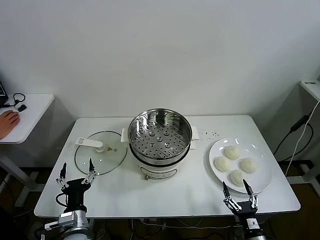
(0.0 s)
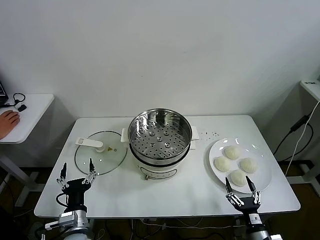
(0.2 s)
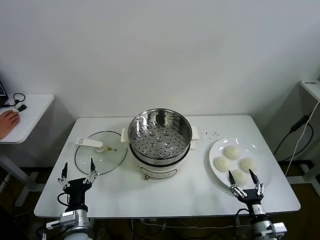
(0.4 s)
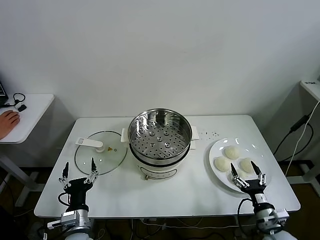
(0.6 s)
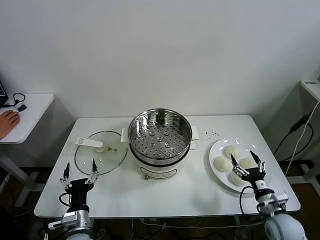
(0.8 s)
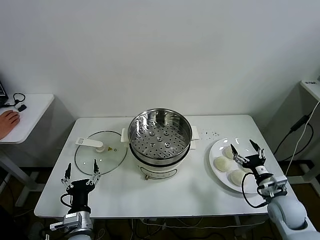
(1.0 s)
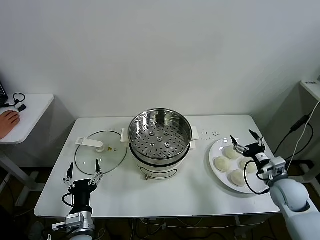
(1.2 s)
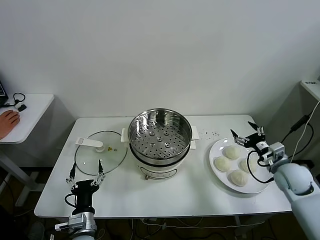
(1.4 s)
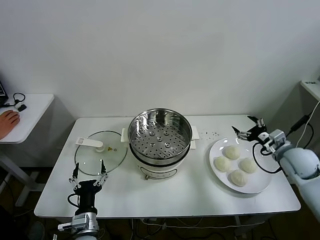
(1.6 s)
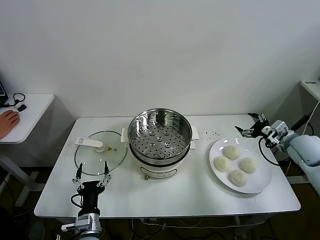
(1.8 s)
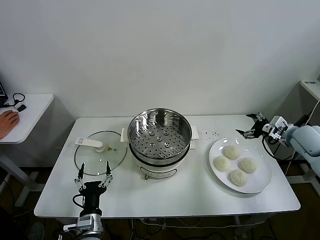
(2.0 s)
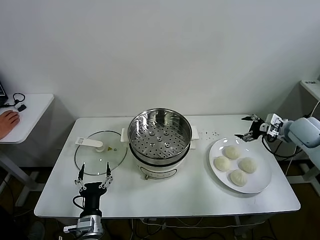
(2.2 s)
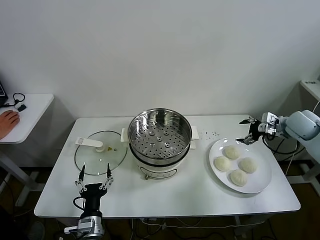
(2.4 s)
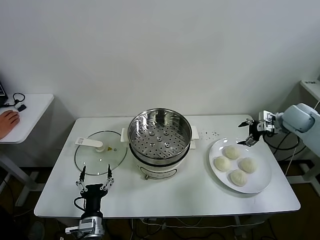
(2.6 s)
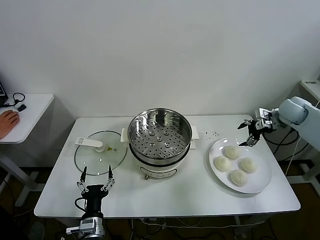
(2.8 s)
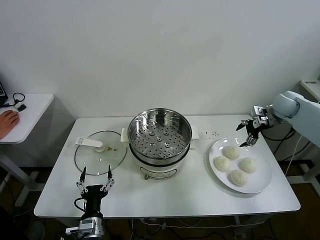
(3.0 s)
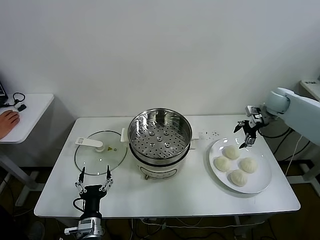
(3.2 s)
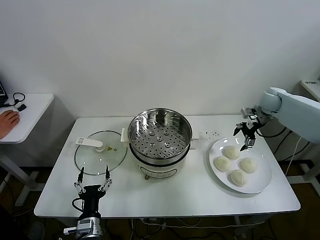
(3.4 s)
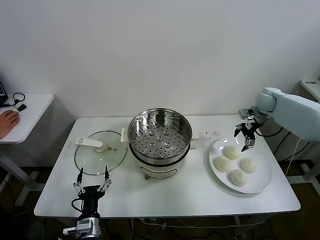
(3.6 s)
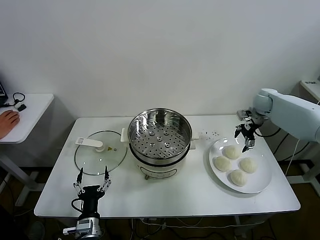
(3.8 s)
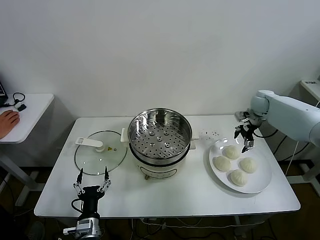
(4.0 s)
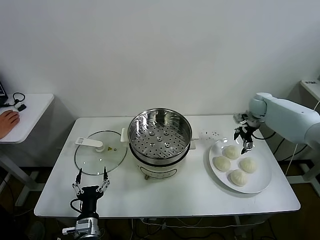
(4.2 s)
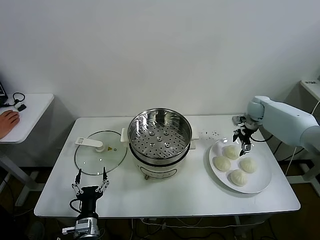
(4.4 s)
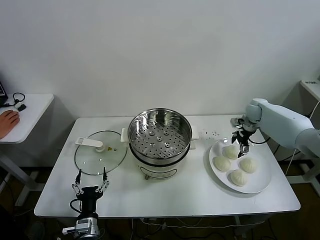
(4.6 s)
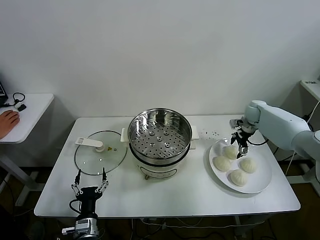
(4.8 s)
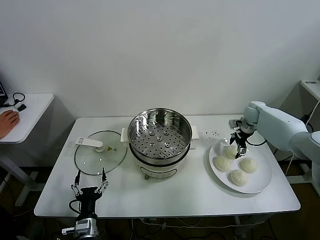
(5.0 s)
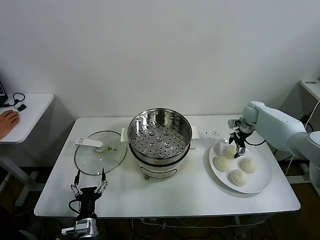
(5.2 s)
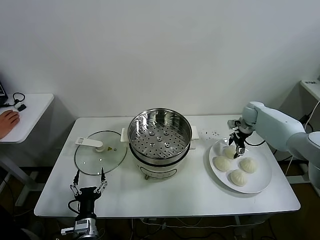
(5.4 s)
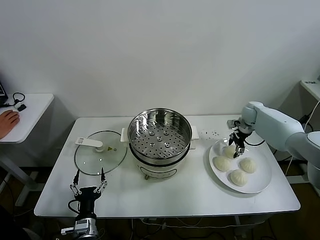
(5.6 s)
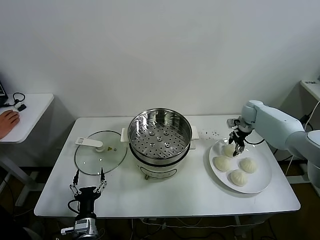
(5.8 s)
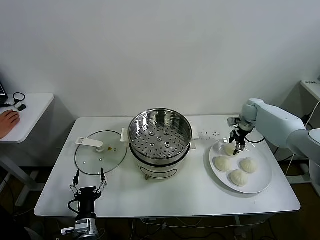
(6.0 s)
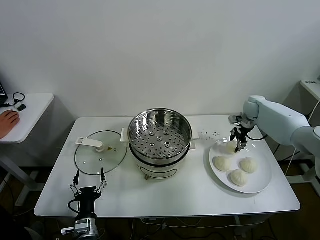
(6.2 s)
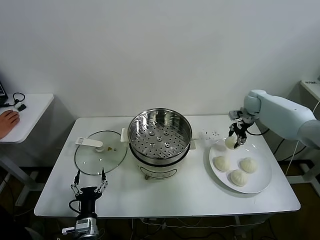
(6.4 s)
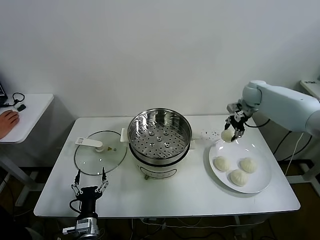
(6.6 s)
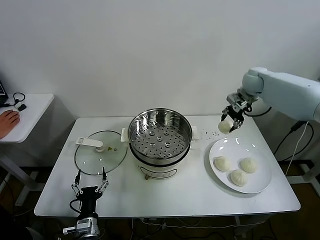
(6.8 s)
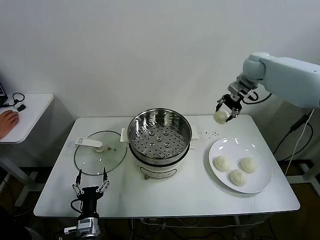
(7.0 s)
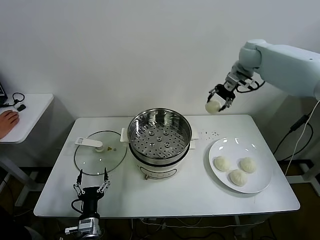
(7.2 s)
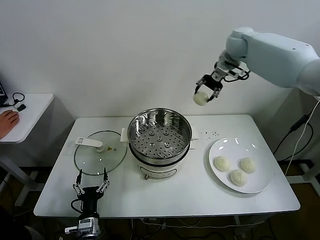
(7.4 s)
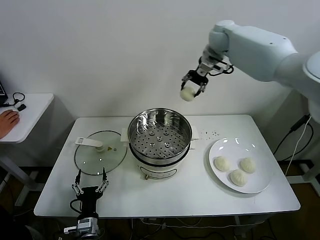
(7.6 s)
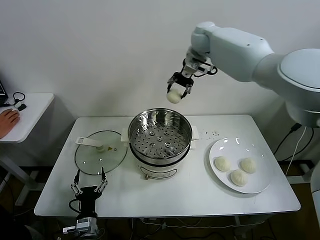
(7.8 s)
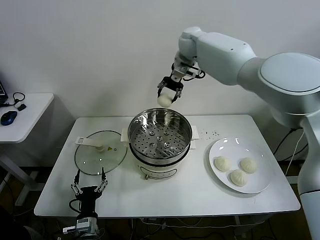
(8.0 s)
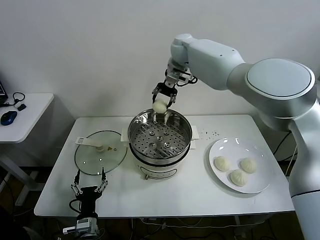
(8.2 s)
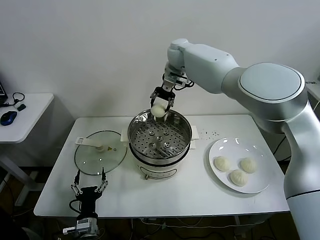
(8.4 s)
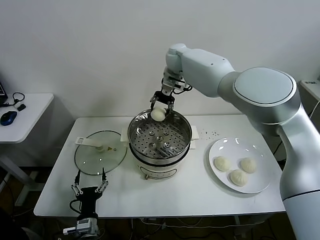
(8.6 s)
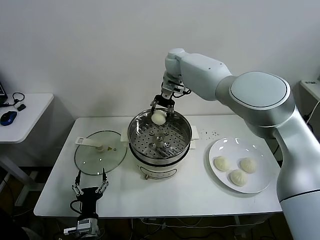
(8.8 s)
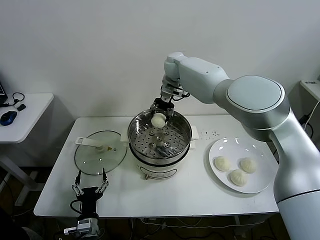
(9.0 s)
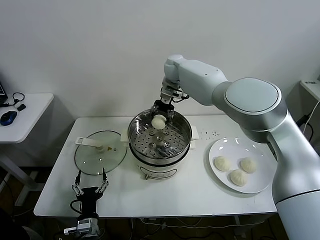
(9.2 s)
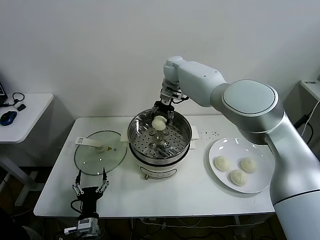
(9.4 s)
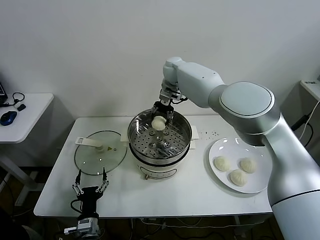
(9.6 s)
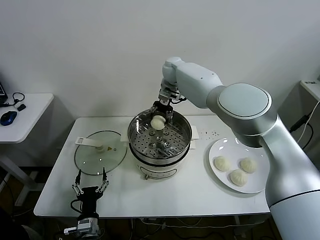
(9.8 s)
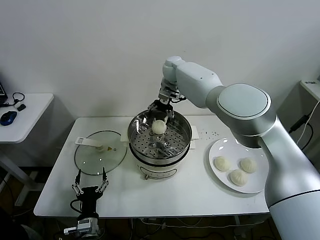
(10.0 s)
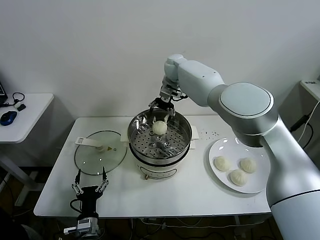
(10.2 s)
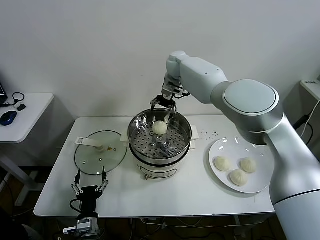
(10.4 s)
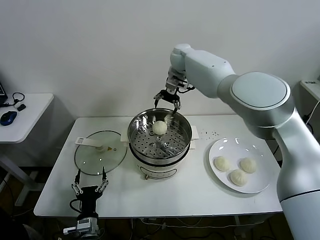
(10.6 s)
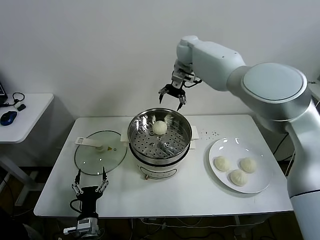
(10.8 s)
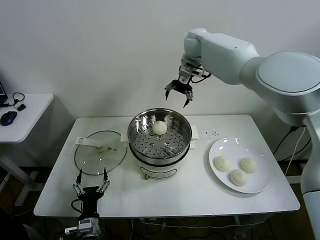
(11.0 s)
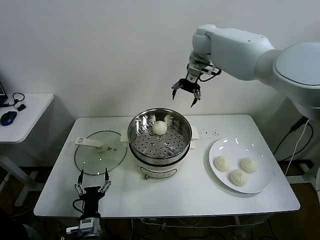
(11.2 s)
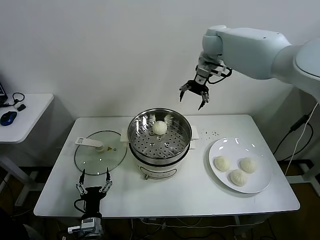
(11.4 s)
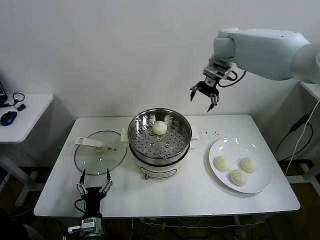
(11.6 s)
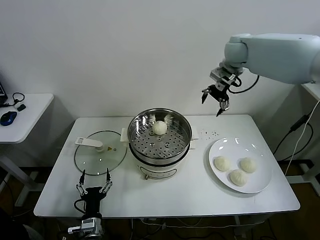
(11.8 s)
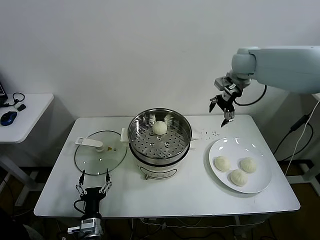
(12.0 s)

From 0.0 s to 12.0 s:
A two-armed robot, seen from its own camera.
Task of the whole recording: take steamed baozi put them in steamer.
Step, from 0.0 s to 6.0 s: Grasp the baozi in the plate with right gripper.
Step, from 6.2 s to 10.0 s: Place the baozi on the steamer with right gripper.
From 1.6 s to 3.0 s: The right gripper moves forward and upward, about 20 cm.
From 3.0 s to 4.4 s: The right gripper travels downward by some 5 cm.
From 4.4 s to 6.0 s: The right gripper closes its fingers.
From 6.0 s to 7.6 s: The right gripper heads upward and to the left, covering roughly 35 cm.
From 7.6 s to 9.0 s: The right gripper shifts approximately 15 cm to the left and downward.
From 9.0 s to 10.4 s: The right gripper opens up.
From 10.4 s to 12.0 s: The right gripper shifts some 25 cm to the right and backward.

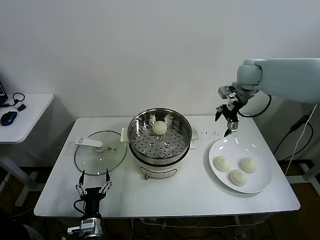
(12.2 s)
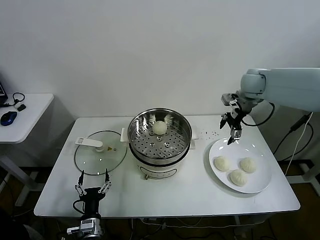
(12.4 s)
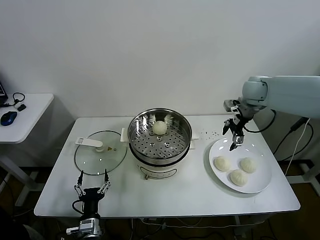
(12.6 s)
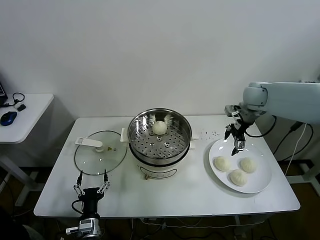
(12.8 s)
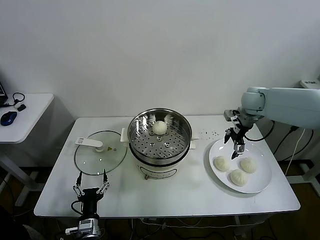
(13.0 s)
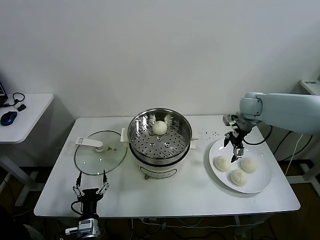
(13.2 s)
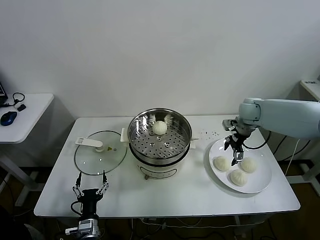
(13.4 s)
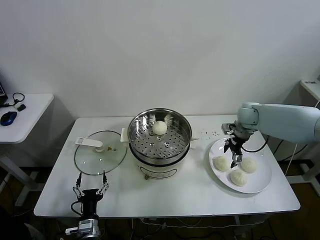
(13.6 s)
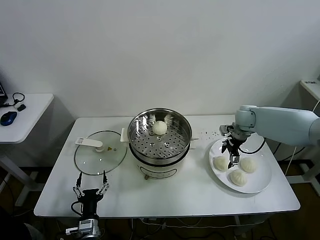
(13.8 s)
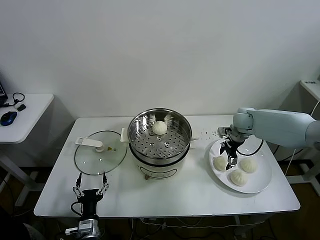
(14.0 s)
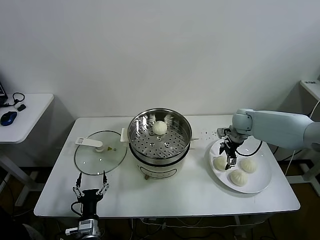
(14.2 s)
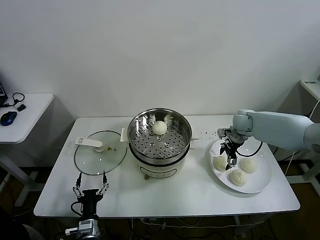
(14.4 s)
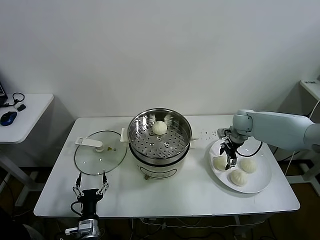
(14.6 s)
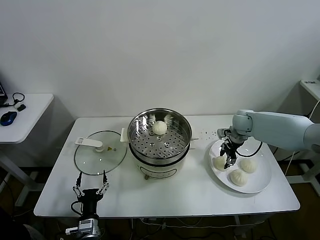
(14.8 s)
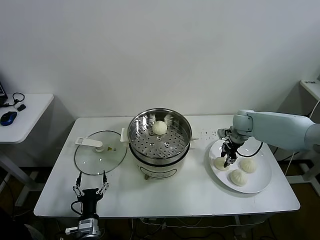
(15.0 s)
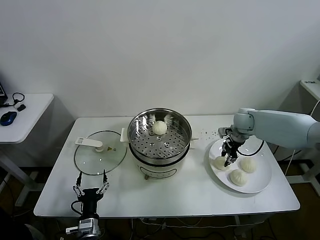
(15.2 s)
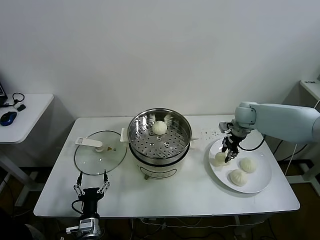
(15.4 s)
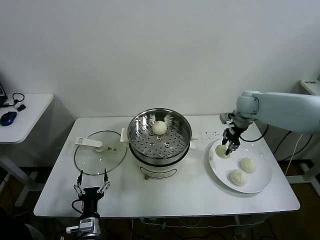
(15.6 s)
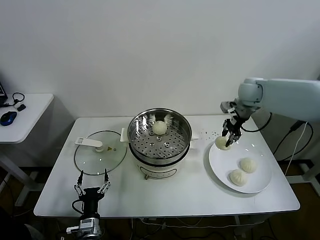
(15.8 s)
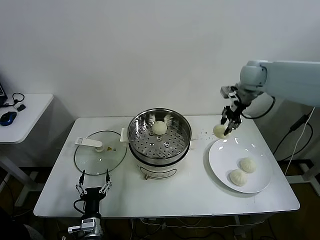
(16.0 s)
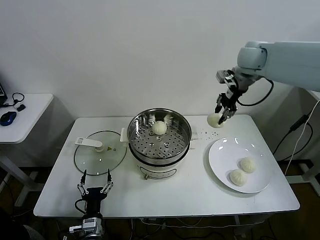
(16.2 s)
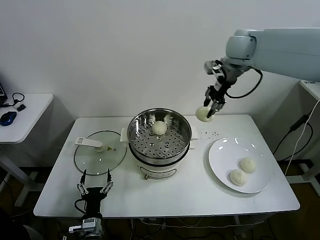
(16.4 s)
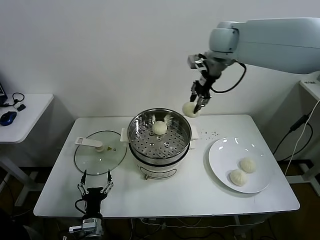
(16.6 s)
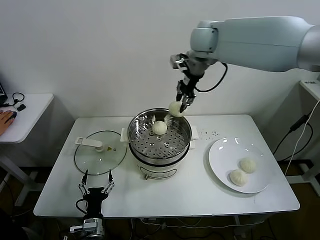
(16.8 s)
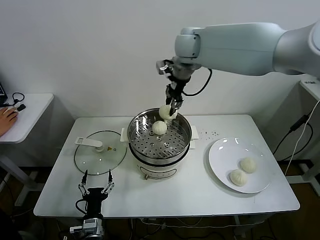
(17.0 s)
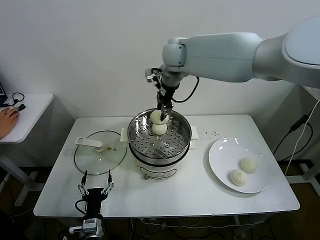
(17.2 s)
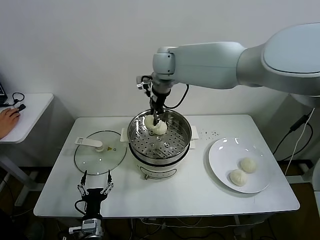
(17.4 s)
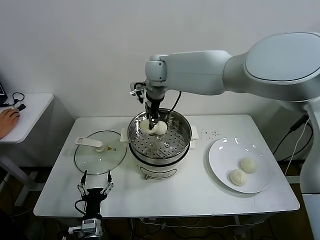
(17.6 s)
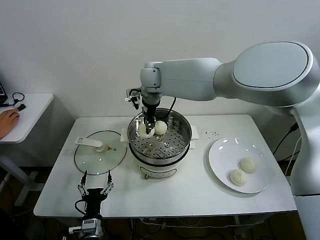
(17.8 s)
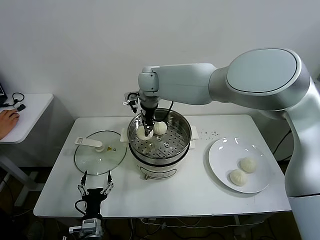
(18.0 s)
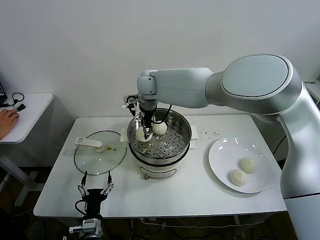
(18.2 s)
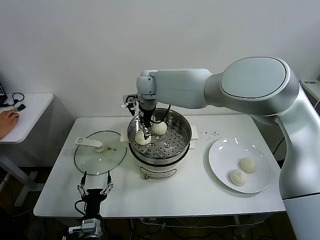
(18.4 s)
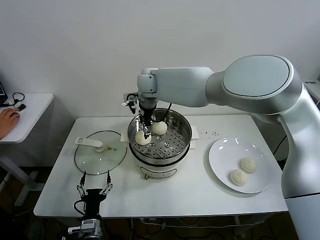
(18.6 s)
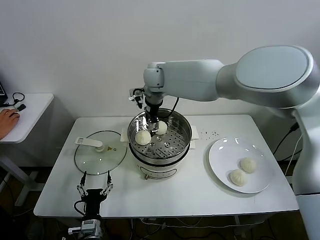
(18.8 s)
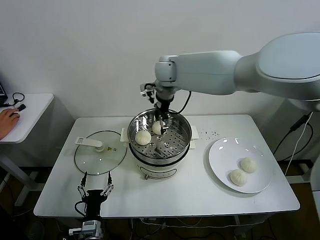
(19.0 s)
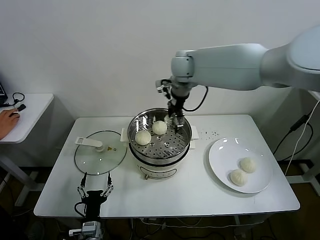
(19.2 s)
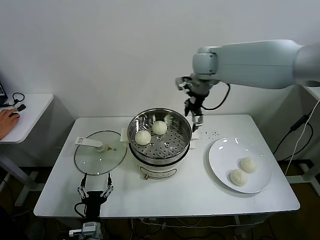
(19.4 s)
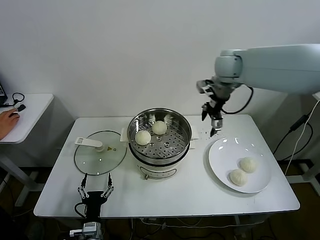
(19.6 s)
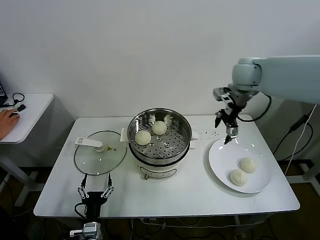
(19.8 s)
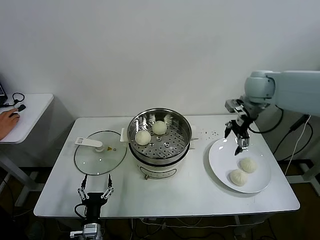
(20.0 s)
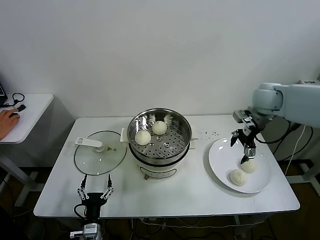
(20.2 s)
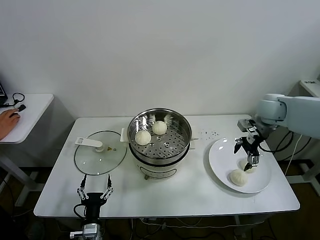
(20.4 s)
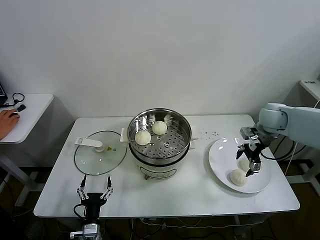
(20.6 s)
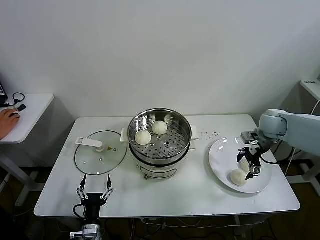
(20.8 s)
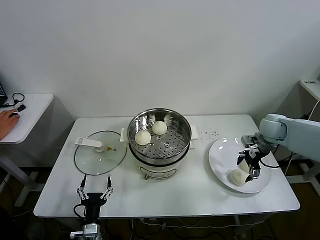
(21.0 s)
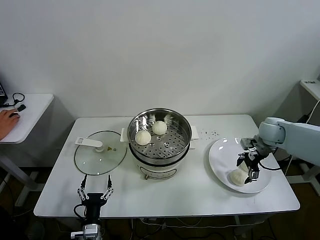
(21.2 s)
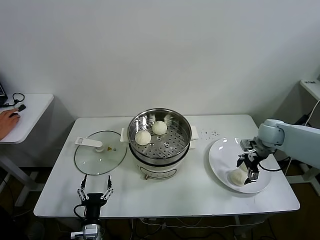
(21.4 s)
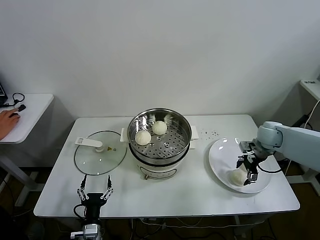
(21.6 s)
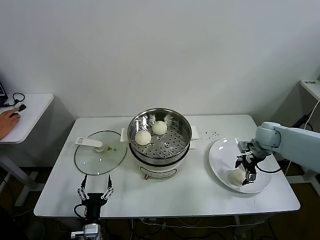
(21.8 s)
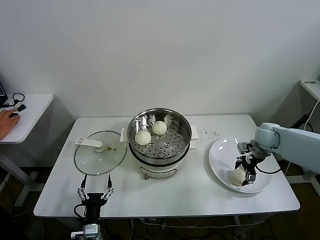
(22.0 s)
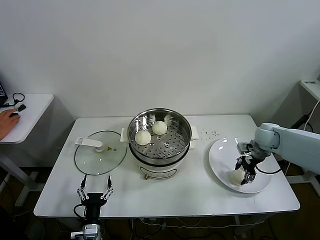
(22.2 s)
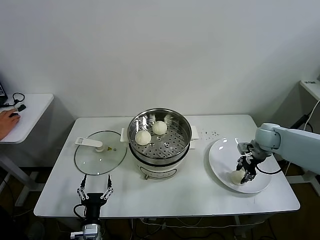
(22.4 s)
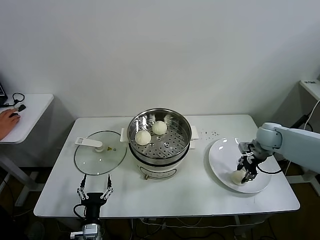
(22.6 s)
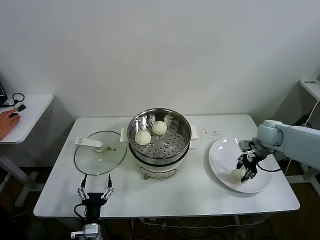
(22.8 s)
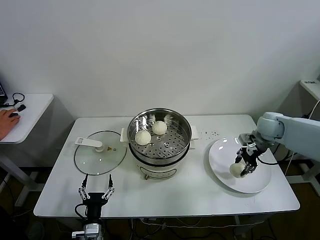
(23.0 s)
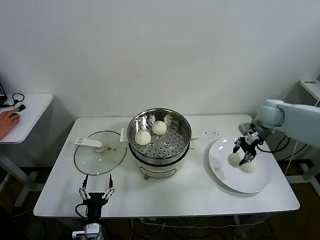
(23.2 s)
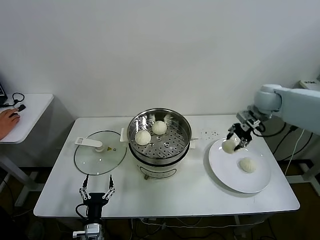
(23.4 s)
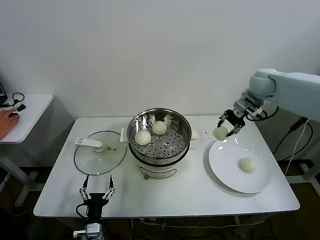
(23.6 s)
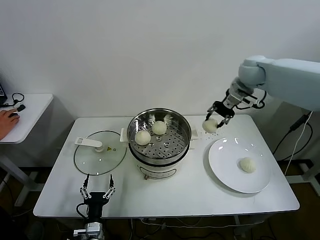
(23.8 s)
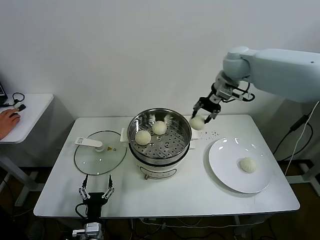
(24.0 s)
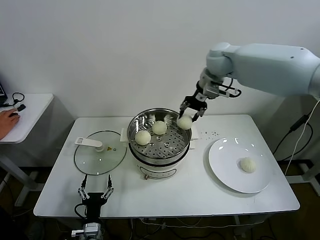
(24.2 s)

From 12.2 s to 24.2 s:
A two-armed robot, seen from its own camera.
Task of the whole recording: take steamed baozi put them in steamer.
Step, from 12.2 s to 14.8 s: Grasp the baozi in the plate with right gripper.
Step, from 15.0 s to 18.8 s: Place the baozi on the steamer with right gripper.
Step, from 19.0 s to 22.2 s: Grasp the baozi in the plate with right gripper.
From 12.2 s to 13.8 s: The right gripper goes about 15 cm downward.
From 13.8 s to 15.2 s: The right gripper closes.
From 15.2 s to 16.6 s: The right gripper goes about 35 cm upward and to the left.
From 16.6 s to 18.2 s: The right gripper goes some 25 cm to the left and downward, and opens up.
From 18.2 s to 19.8 s: The right gripper moves to the right, some 30 cm, and opens its fingers.
From 19.8 s to 21.2 s: The right gripper travels downward and to the right by some 25 cm.
From 21.2 s to 22.6 s: The right gripper closes its fingers.
From 22.6 s to 24.2 s: The right gripper is displaced upward, to the left and forward by about 35 cm.
